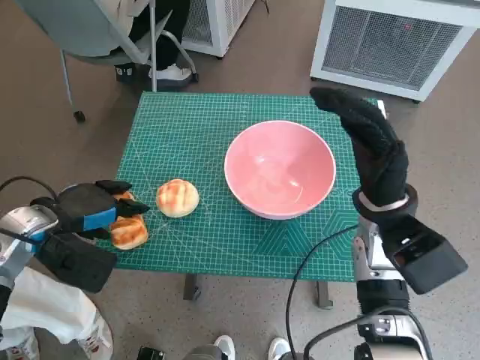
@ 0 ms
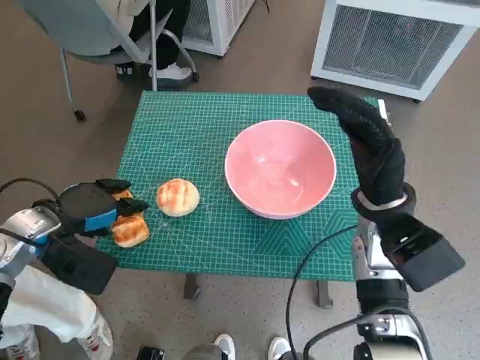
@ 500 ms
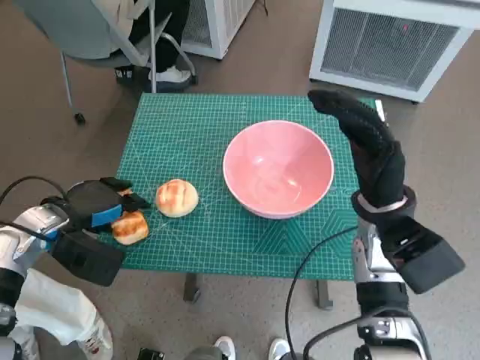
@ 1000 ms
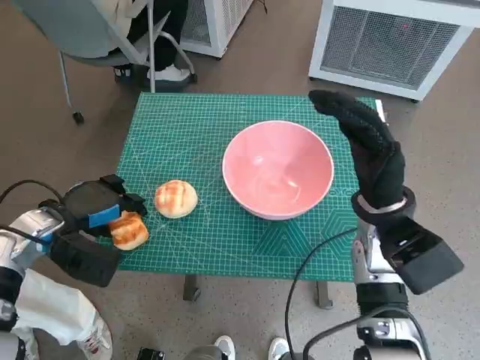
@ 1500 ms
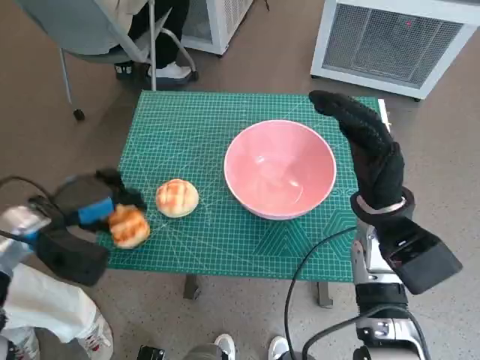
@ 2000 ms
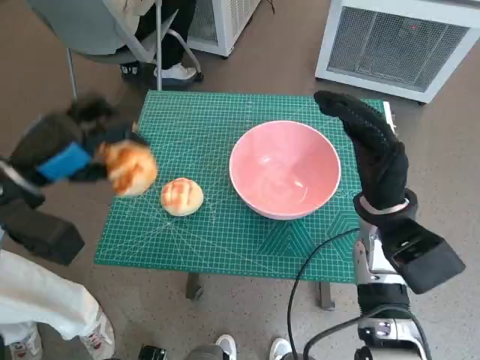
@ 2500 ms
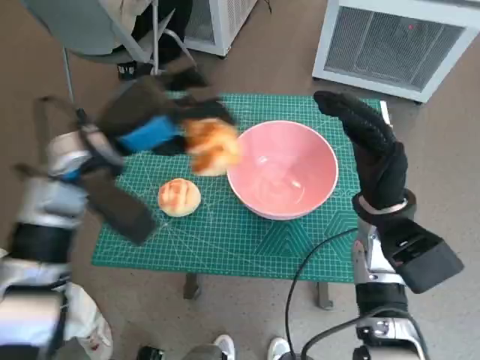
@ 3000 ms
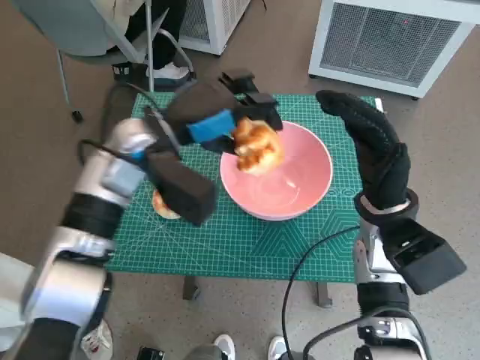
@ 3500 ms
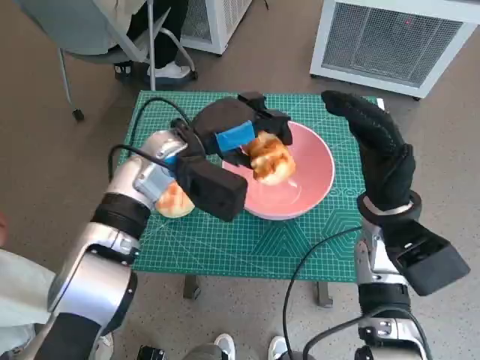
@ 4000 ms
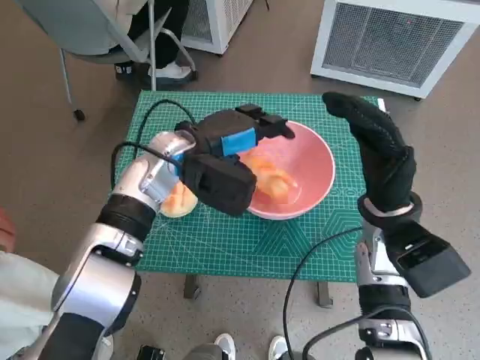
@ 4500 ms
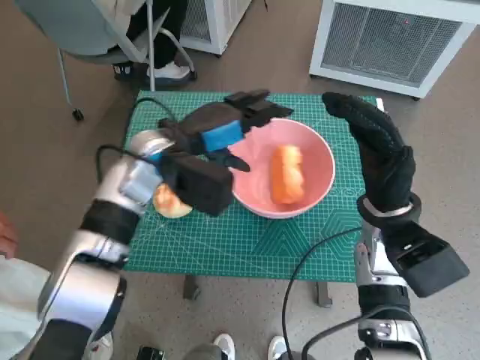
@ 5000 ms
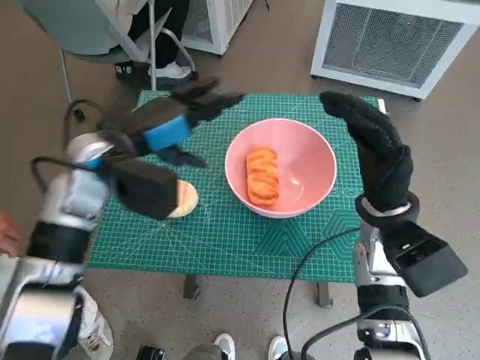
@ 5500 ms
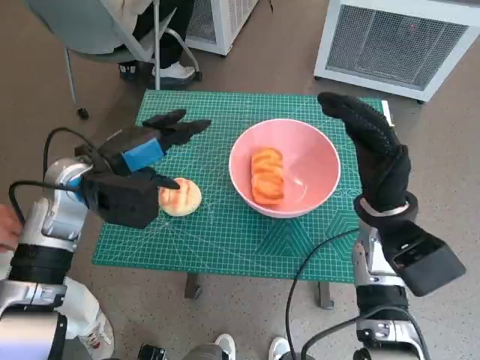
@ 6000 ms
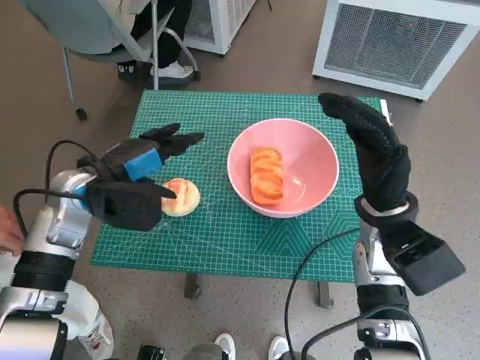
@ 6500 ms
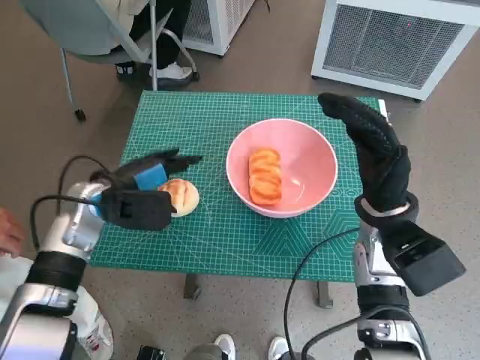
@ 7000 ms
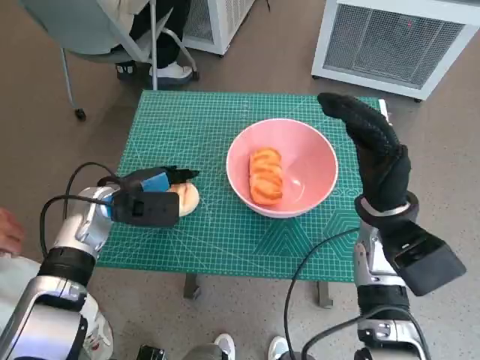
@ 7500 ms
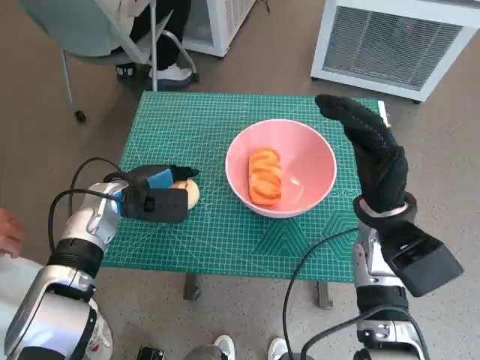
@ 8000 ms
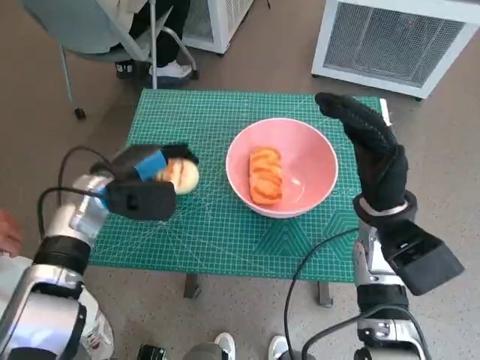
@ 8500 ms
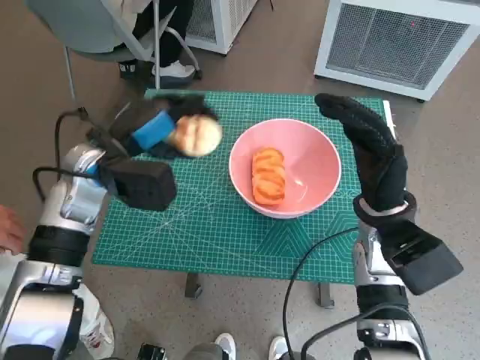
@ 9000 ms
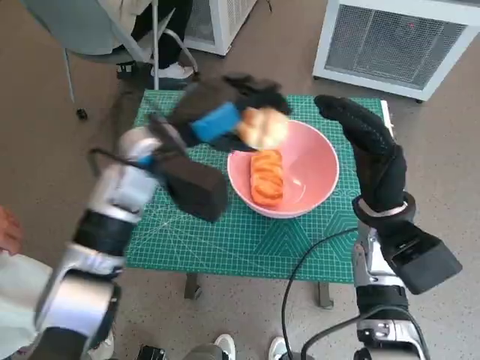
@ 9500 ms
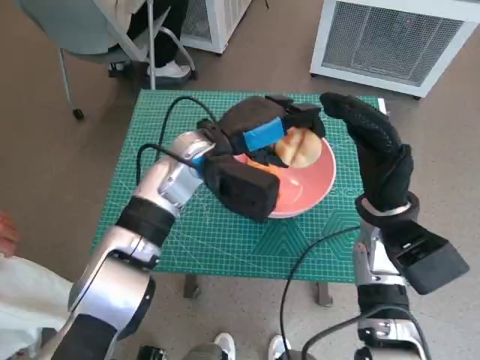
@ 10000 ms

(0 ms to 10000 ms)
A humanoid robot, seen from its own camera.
Task of the whole recording: Push the bowl to the center of the table and put the bread into the bowl.
Step, 500 ms - 4500 ms: Place the long bread in pink bowl with left hand.
Step, 5000 ms - 8000 ms: Grasp the round bread with left hand.
0 ms - 2000 ms: The hands stay close to where they were, moving slightly.
2000 ms - 4000 ms: The left hand is displaced to the right and forward by roughly 20 cm.
4000 ms - 6000 ms: The left hand shifts about 10 cm to the left.
6000 ms - 8000 ms: The left hand shifts approximately 10 cm downward.
8000 ms - 10000 ms: The left hand moves to the right and upward, approximately 15 cm.

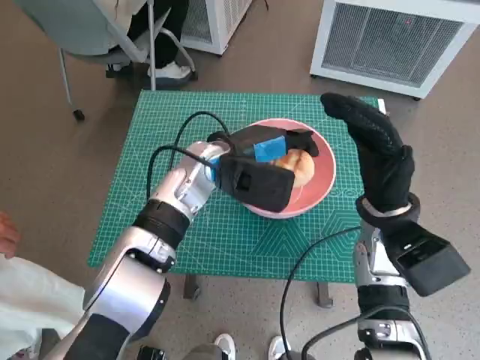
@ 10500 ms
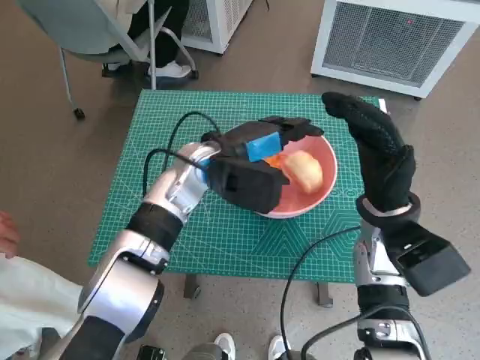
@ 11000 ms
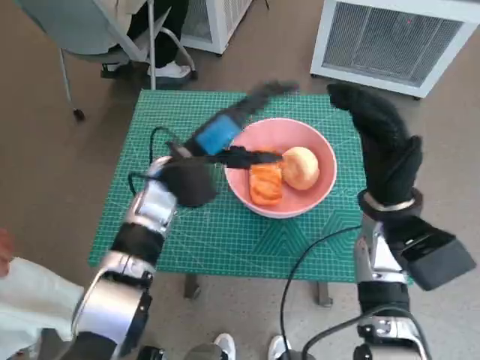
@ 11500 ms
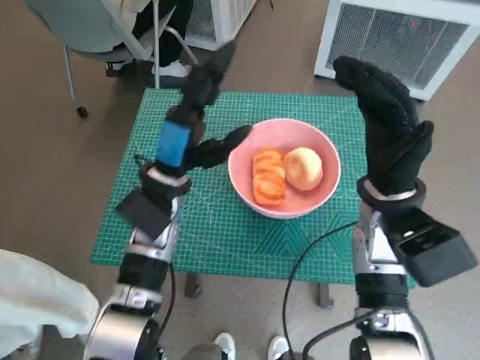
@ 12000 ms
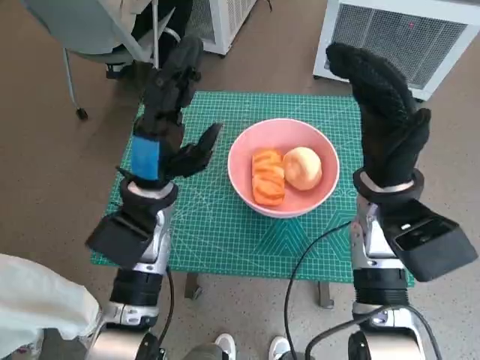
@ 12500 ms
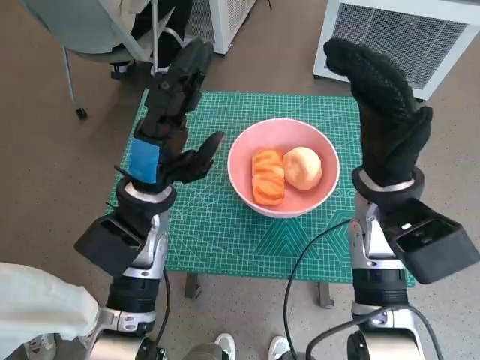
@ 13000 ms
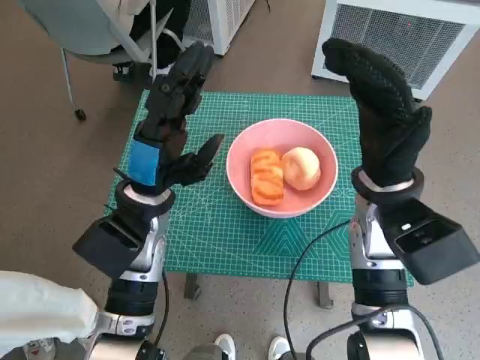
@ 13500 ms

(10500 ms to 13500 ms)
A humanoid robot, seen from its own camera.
Task of the whole recording: Push the bowl to the center of the table and put the bread into the bowl.
10500 ms - 12000 ms: The left hand is displaced to the left by some 5 cm.

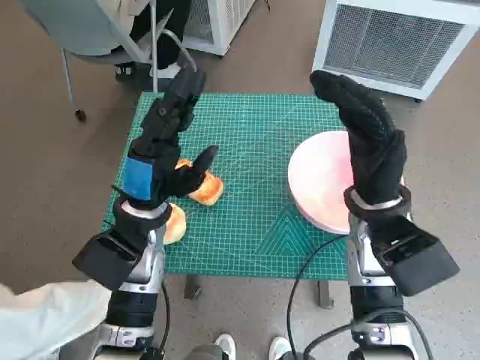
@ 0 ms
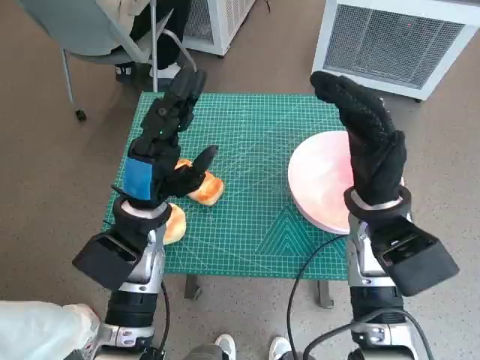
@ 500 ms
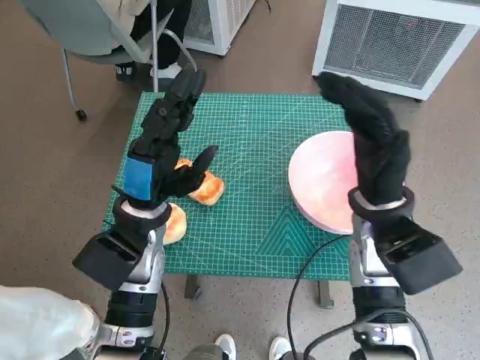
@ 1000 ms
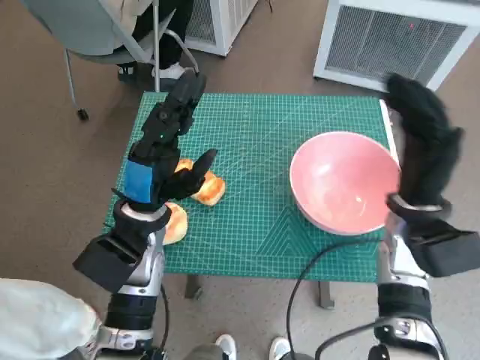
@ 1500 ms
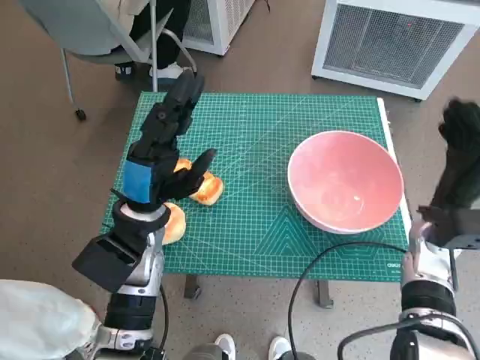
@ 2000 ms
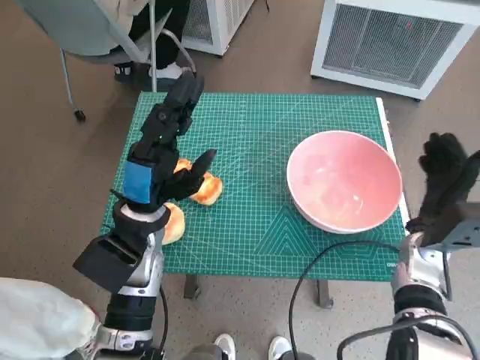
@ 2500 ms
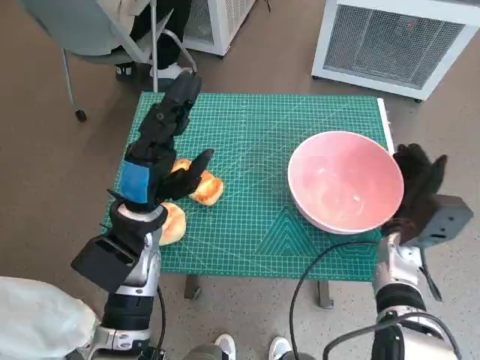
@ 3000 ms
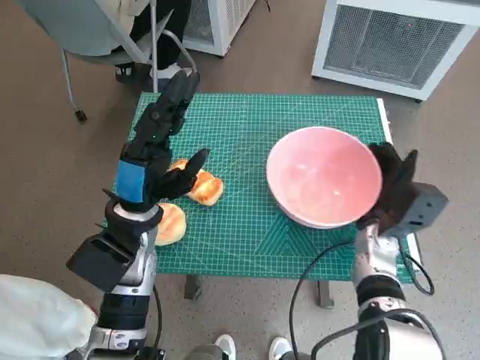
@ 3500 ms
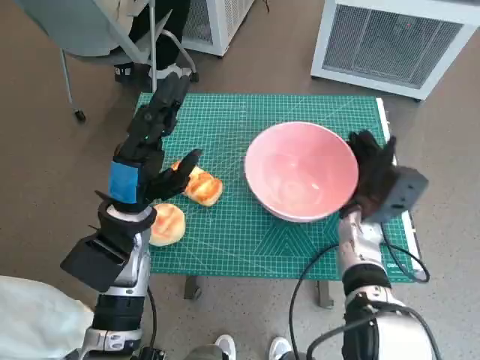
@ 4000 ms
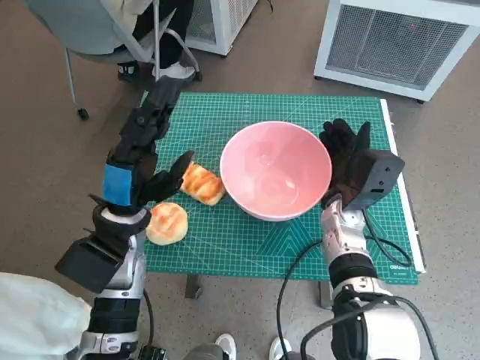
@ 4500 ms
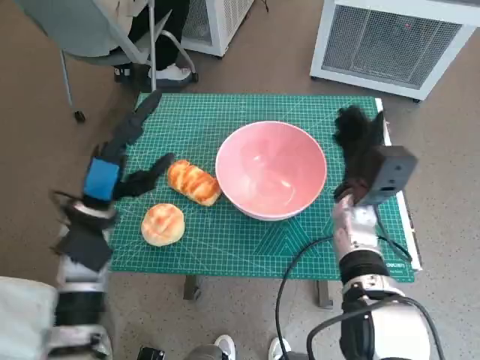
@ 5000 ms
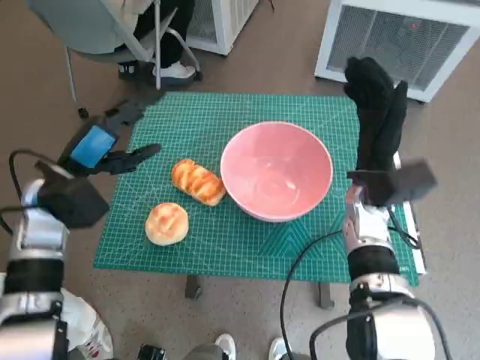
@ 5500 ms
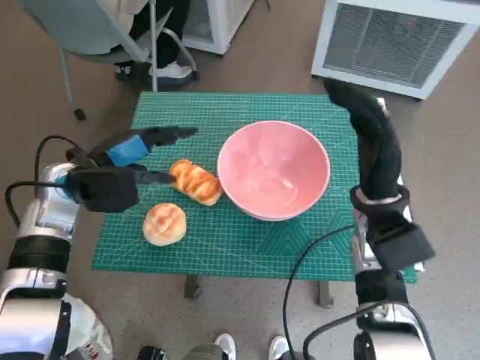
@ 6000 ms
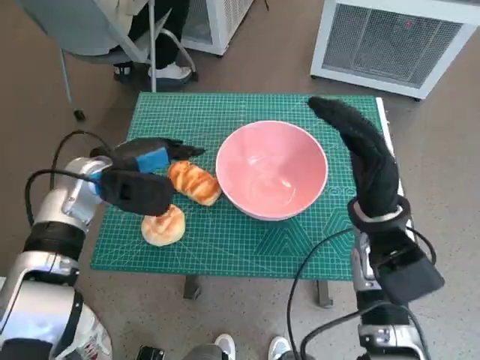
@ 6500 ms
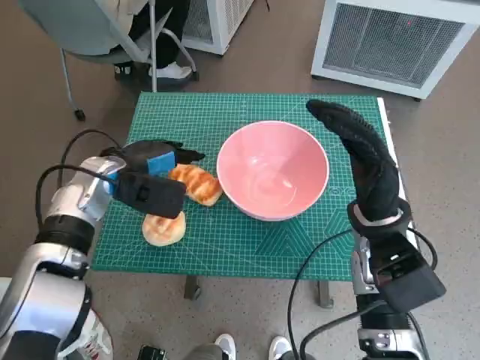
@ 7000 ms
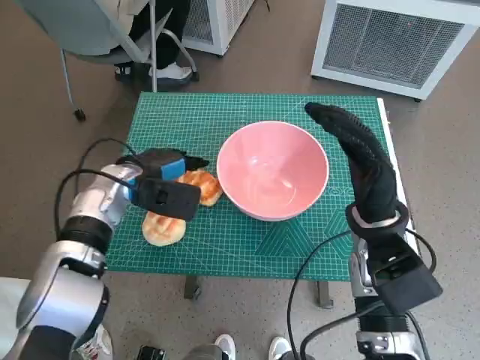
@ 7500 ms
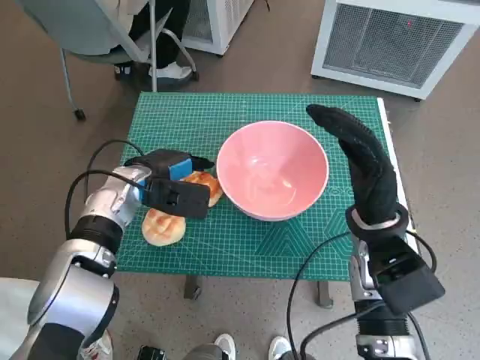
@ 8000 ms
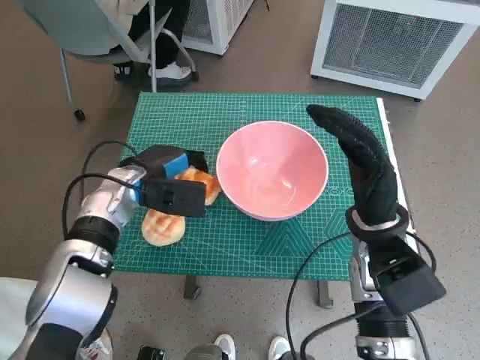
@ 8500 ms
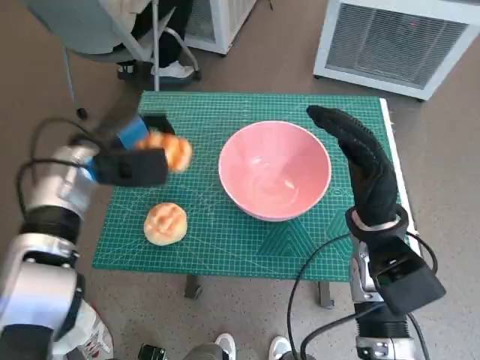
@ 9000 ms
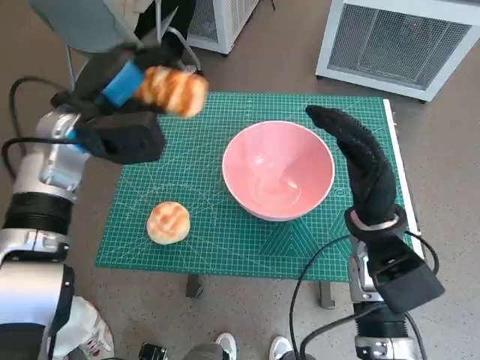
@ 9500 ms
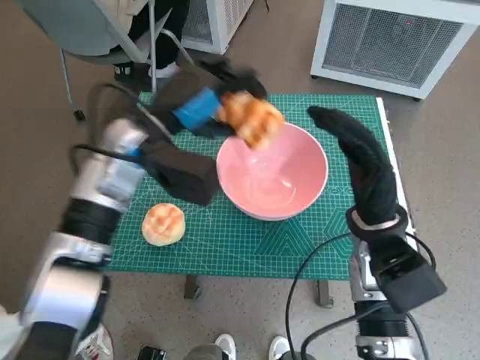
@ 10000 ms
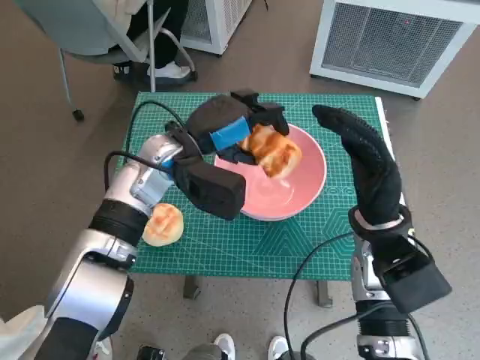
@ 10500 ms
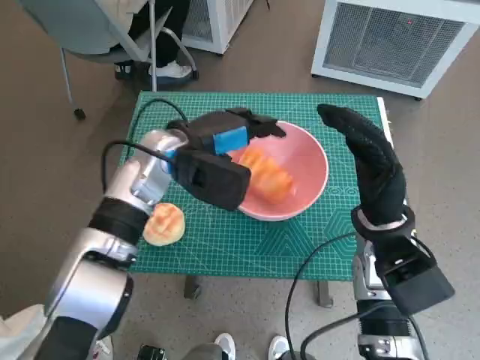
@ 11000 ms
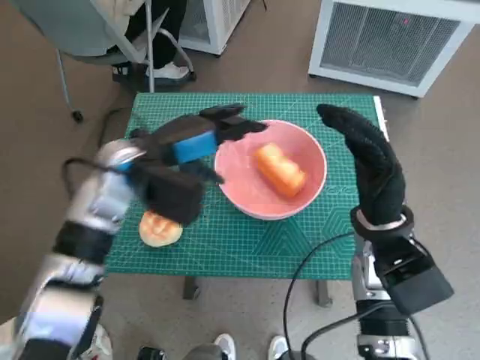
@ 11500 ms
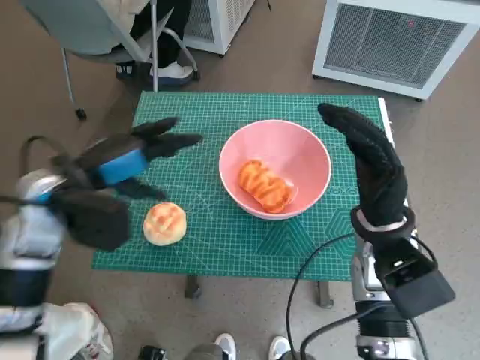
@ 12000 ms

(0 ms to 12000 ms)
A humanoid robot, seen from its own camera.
Task of the whole recording: Push the bowl to the center of the table and put the bread into the bowl.
Step, 0 ms - 5000 ms: Move the pink bowl to the center of table with right hand.
Step, 5500 ms - 8000 ms: Grasp the long bread with left hand.
Step, 9000 ms - 11000 ms: Place the long bread in pink bowl with left hand.
2000 ms - 4000 ms: The right hand moves to the left, roughly 10 cm.
4000 ms - 6000 ms: The left hand heads to the left and forward, covering some 10 cm; the right hand moves upward, approximately 10 cm.
6000 ms - 8000 ms: The left hand shifts about 10 cm to the right and downward.
8000 ms - 10000 ms: The left hand moves upward, roughly 10 cm.
10000 ms - 12000 ms: The left hand shifts roughly 10 cm to the left and backward.
